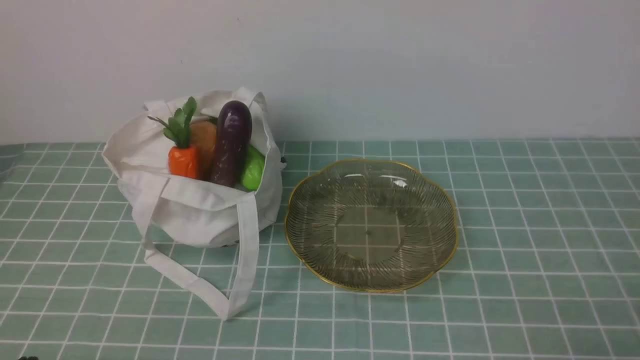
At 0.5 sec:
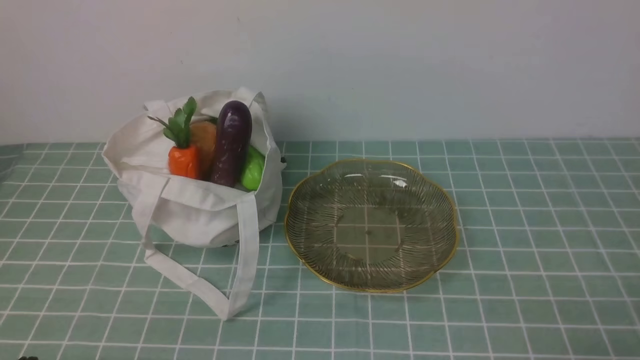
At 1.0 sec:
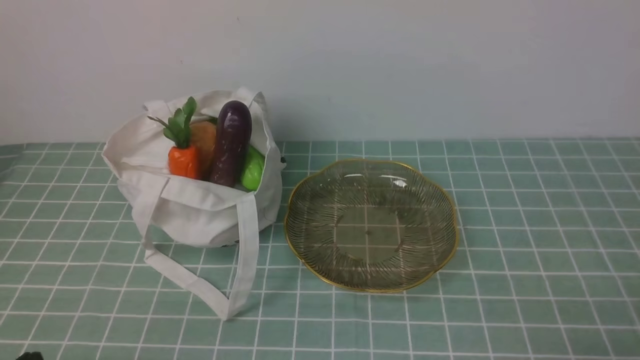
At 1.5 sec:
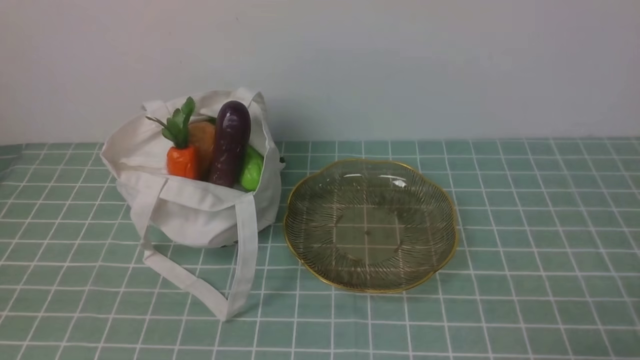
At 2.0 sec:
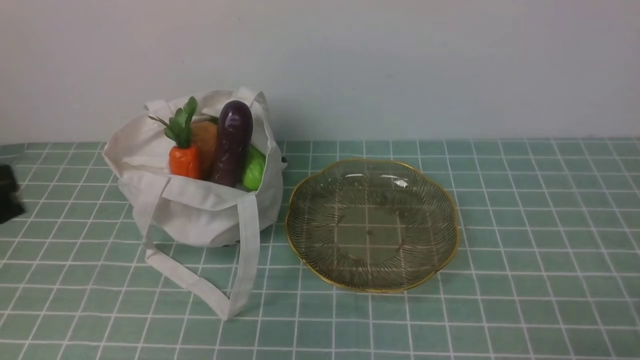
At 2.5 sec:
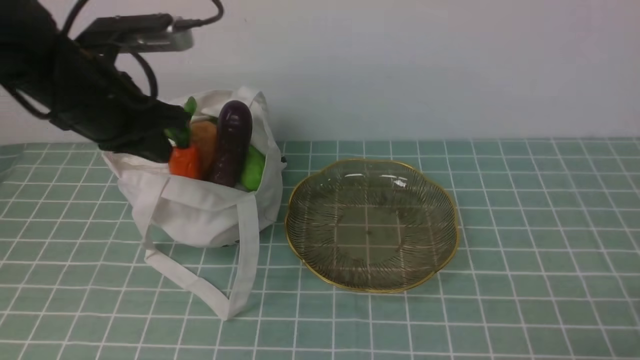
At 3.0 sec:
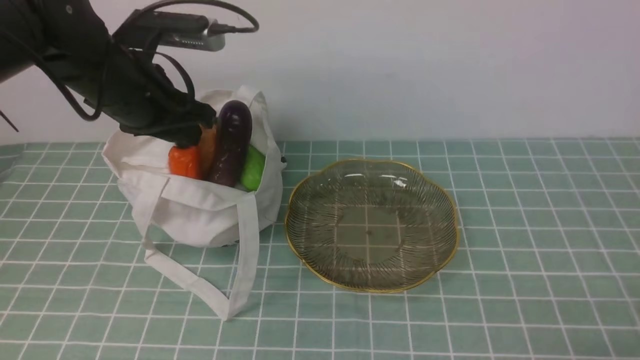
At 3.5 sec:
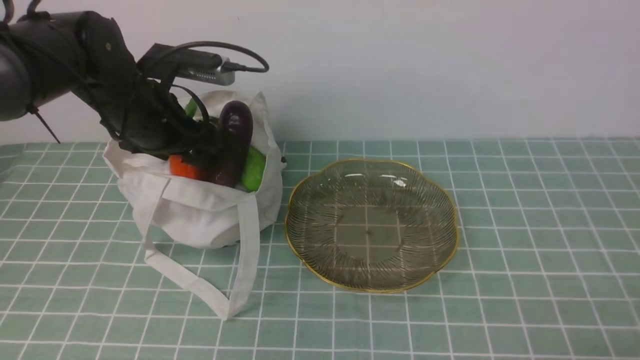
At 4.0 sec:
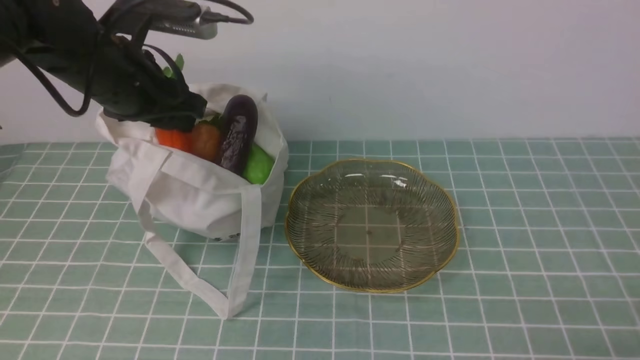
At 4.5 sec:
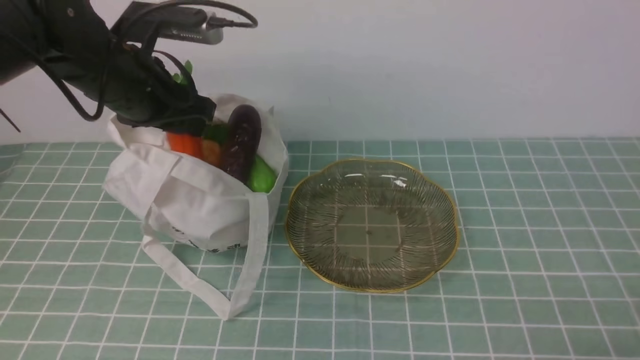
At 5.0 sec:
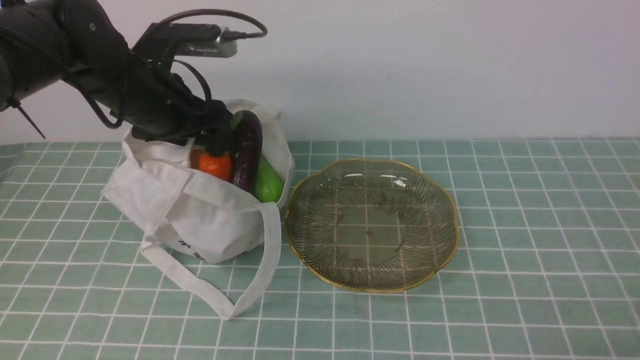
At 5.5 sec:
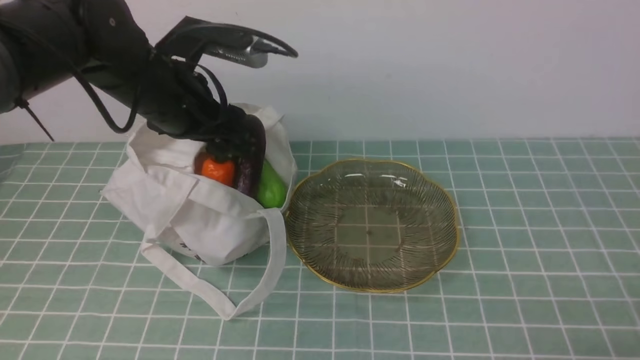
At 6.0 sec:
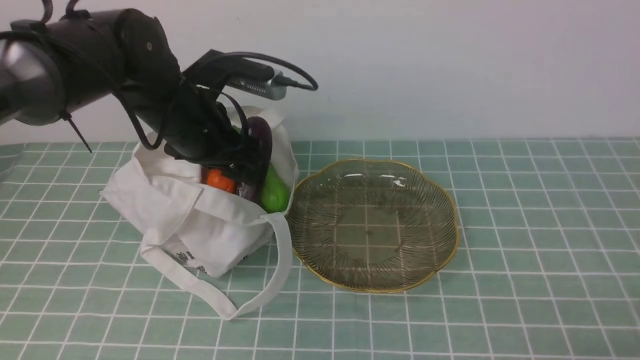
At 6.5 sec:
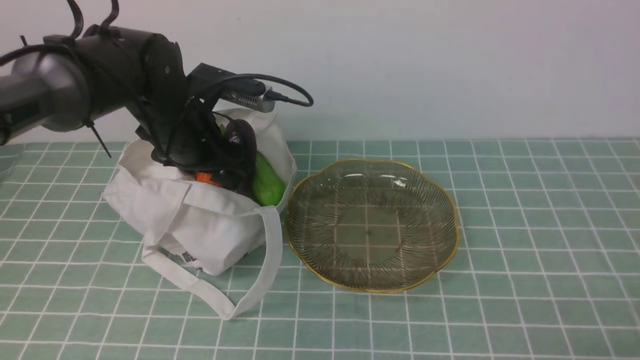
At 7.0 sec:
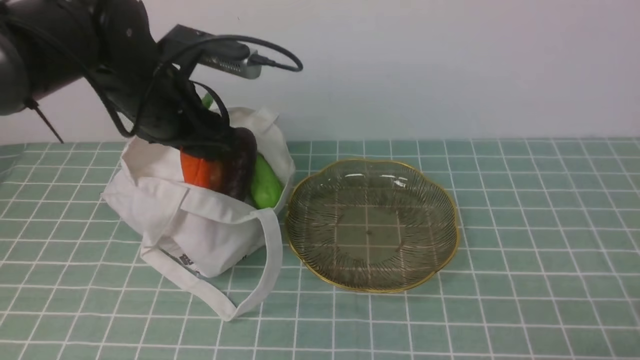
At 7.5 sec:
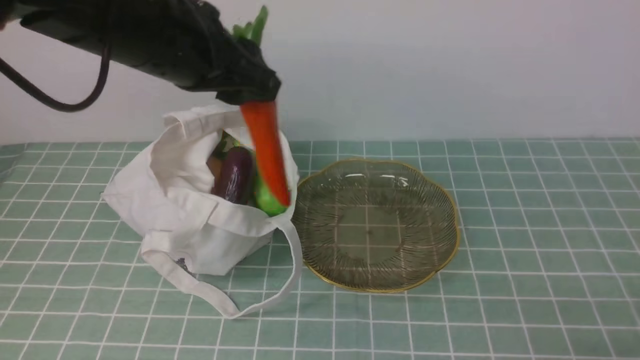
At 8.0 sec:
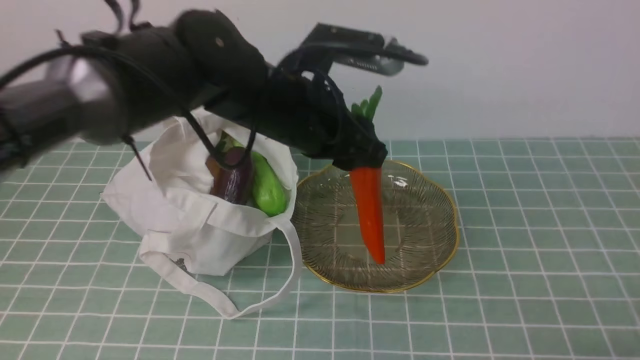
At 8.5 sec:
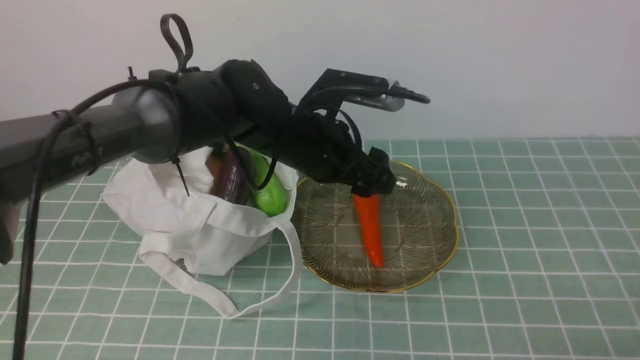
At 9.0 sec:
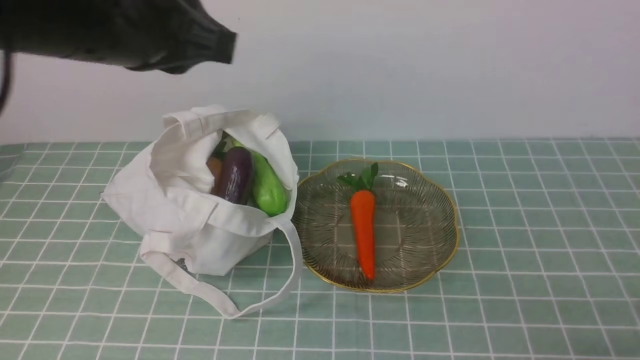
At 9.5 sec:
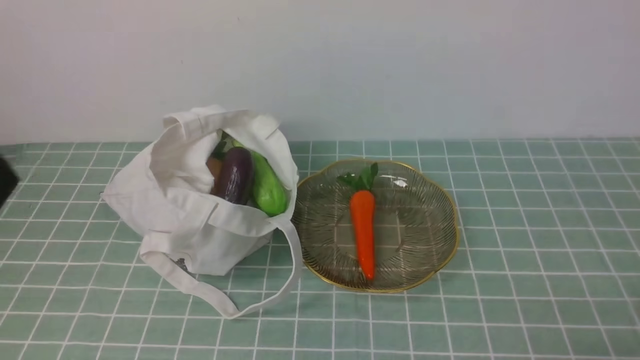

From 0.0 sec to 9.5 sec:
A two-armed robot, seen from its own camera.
Task of the whole recording: take vegetables from cloth bag on blue coffee tablecloth place on plate.
Step, from 0.0 sec to 3.5 sec: Grasp the radish with left gripper.
Step, from 4.0 sec to 8.0 sec: Place the radish on the plate with left gripper.
From 2.0 sec to 4.0 sec: The left gripper is displaced forward by some 25 cm, and opens up.
From 4.0 sec to 5.5 sec: The left gripper moves approximately 5 cm, and opens.
From 5.5 sec to 7.5 sec: The left gripper is displaced upward and backward by approximately 10 cm, and closes its fingers.
From 7.5 sec to 9.5 sec: The left gripper goes approximately 30 cm backward and to the left, and closes.

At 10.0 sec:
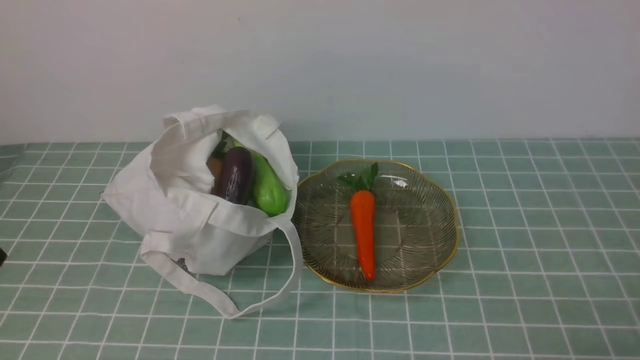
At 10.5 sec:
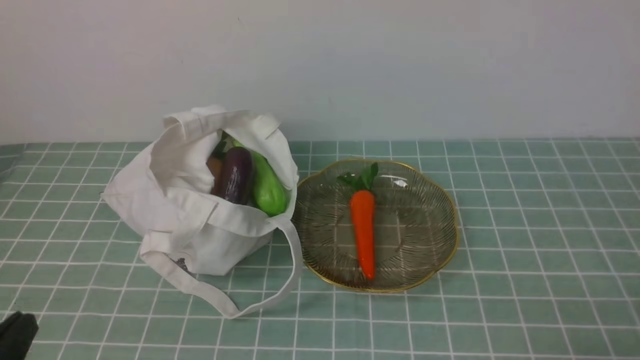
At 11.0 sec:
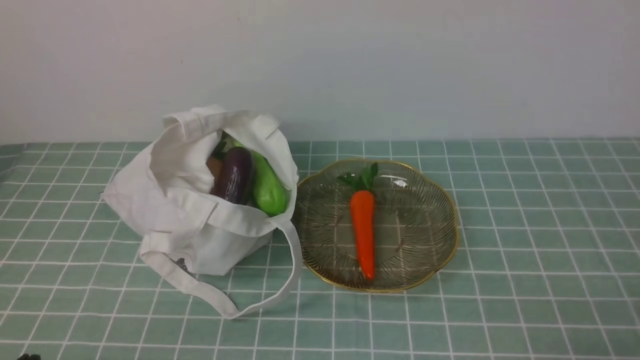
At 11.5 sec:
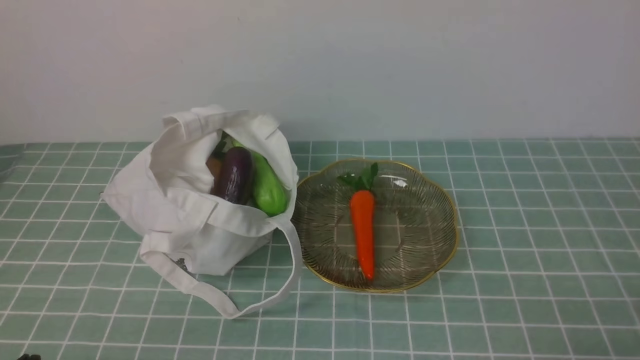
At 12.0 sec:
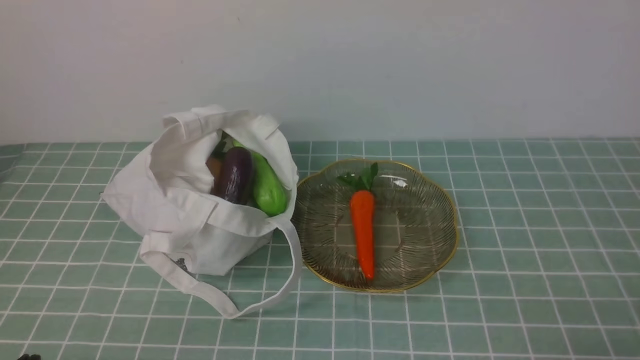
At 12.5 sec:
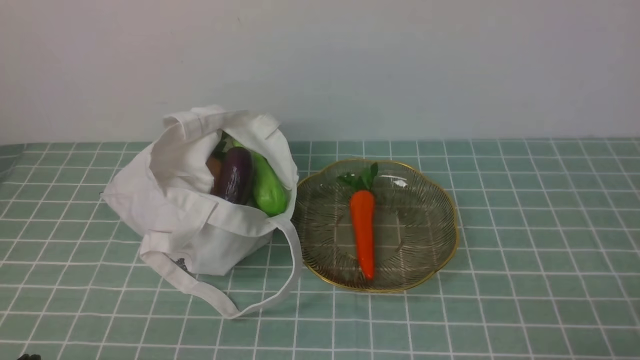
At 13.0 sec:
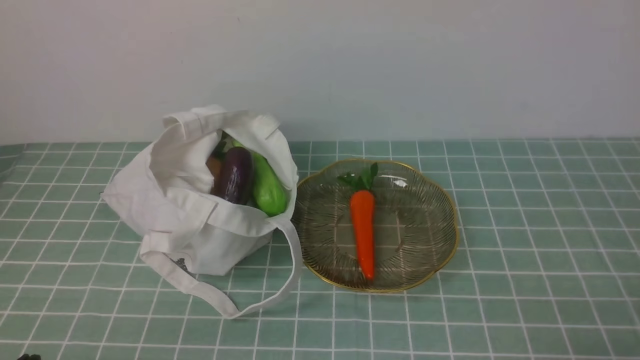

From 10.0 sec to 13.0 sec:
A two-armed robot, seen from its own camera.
Task of the whole recording: take vegetables from cloth bag on blue coffee tablecloth place on plate.
From 11.5 sec to 13.0 sec: Both grippers stay put.
